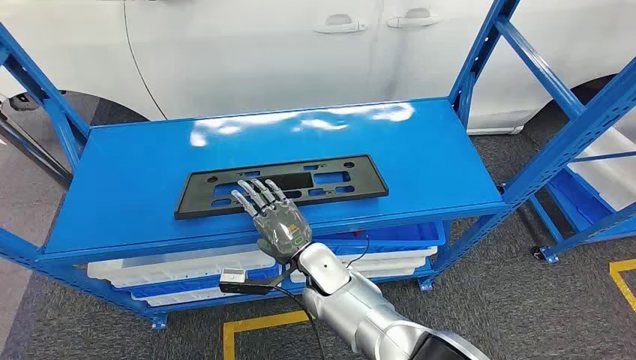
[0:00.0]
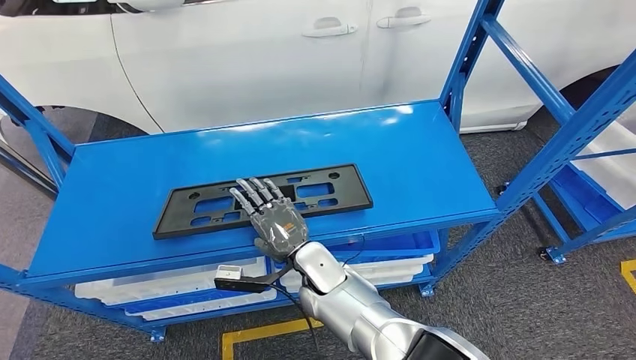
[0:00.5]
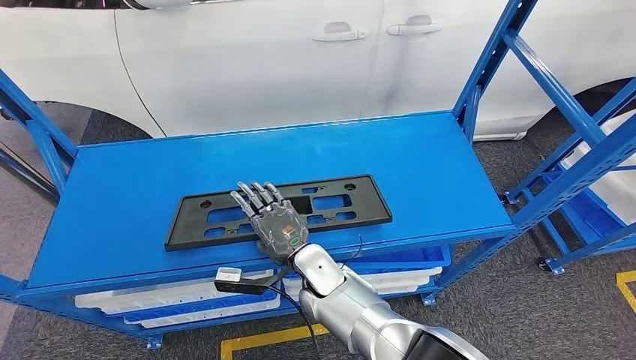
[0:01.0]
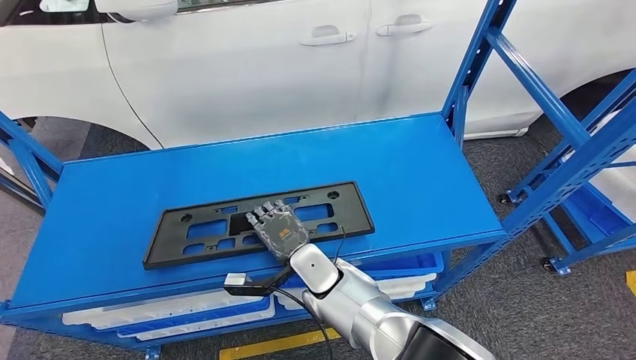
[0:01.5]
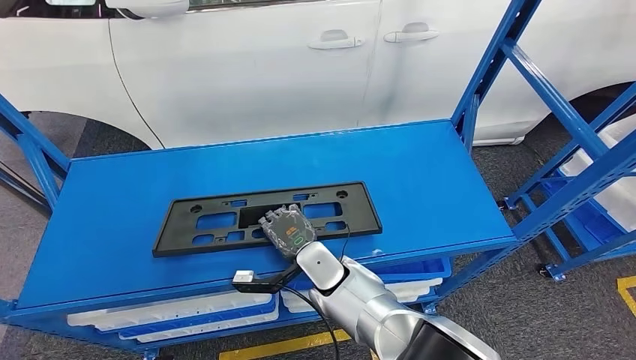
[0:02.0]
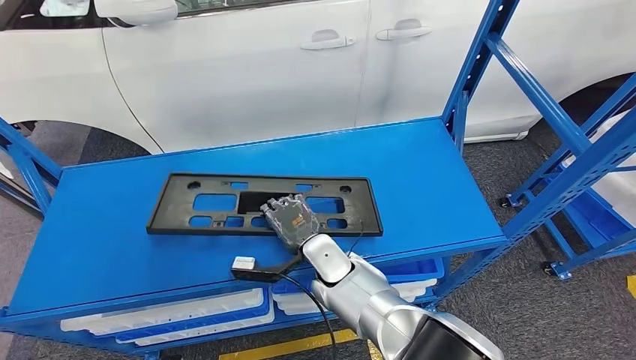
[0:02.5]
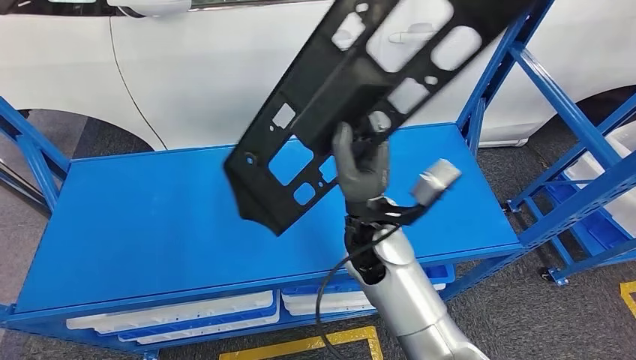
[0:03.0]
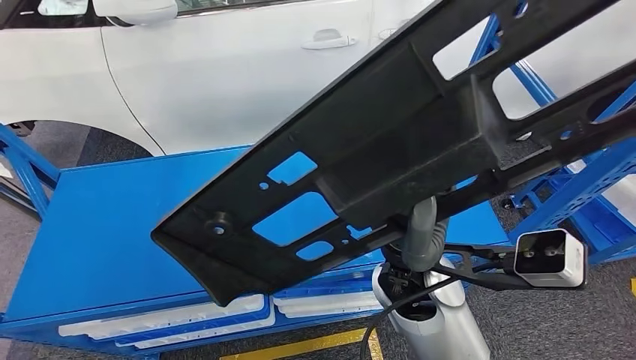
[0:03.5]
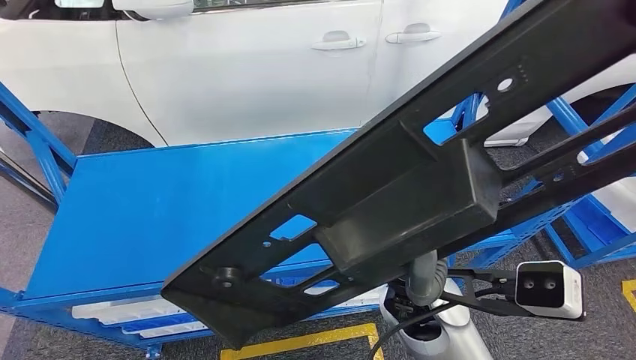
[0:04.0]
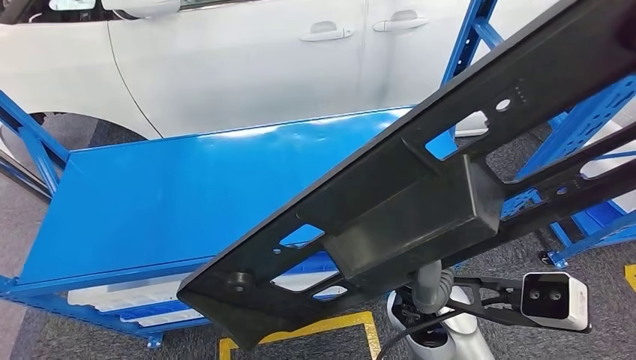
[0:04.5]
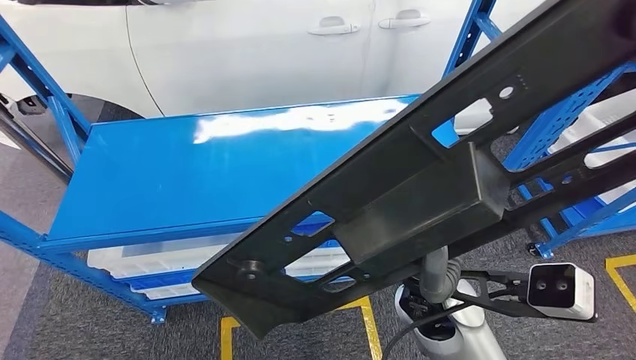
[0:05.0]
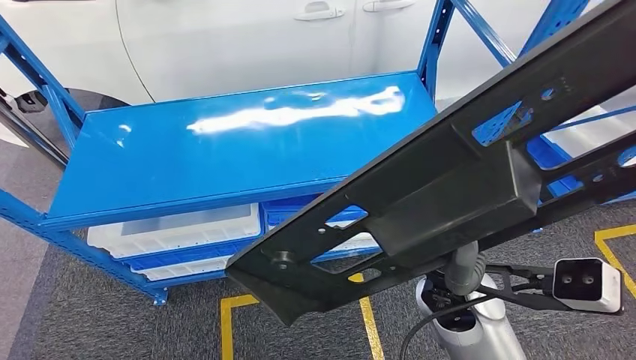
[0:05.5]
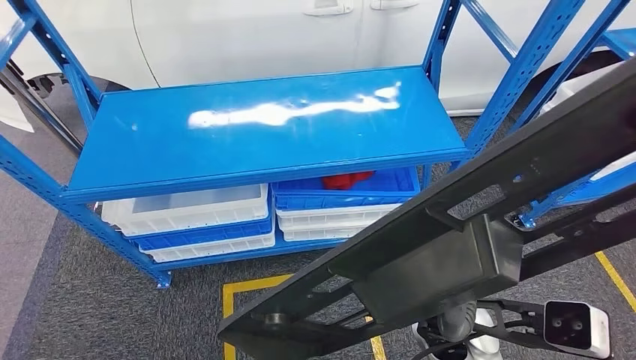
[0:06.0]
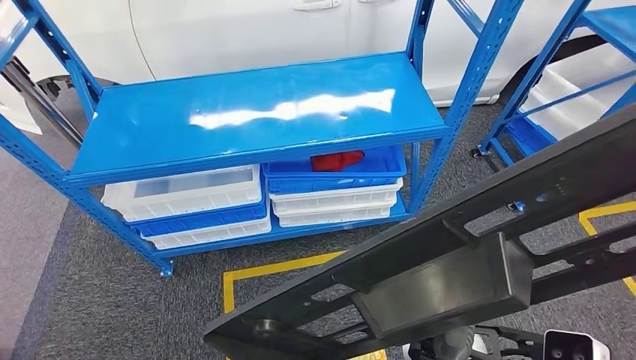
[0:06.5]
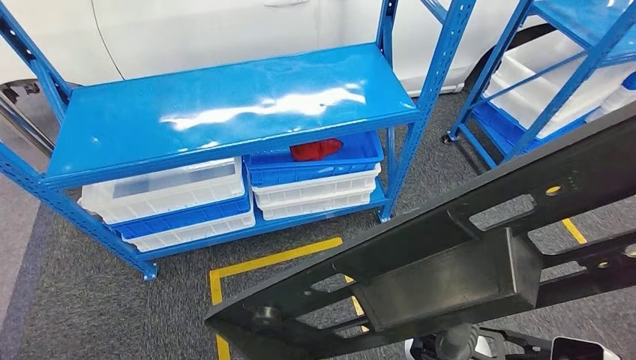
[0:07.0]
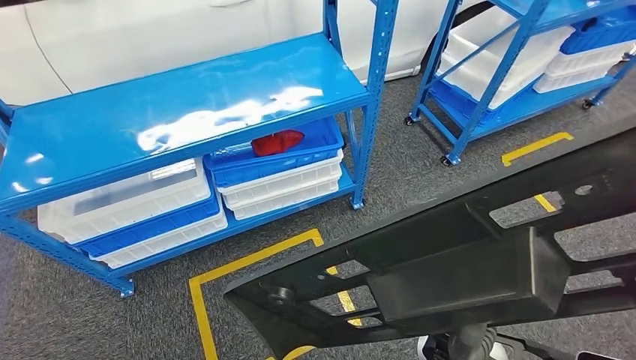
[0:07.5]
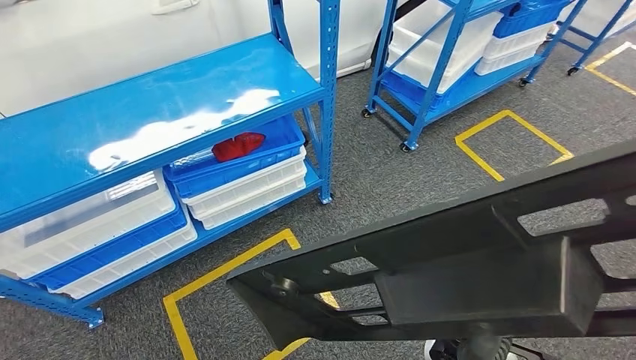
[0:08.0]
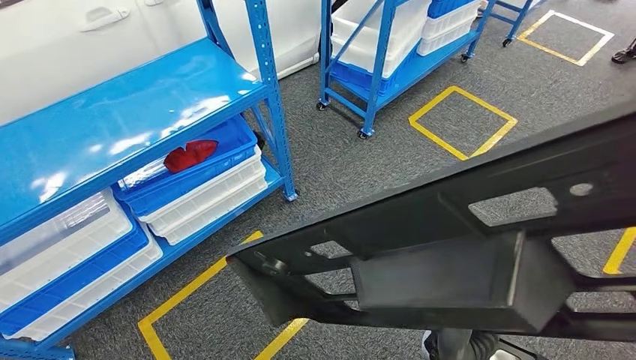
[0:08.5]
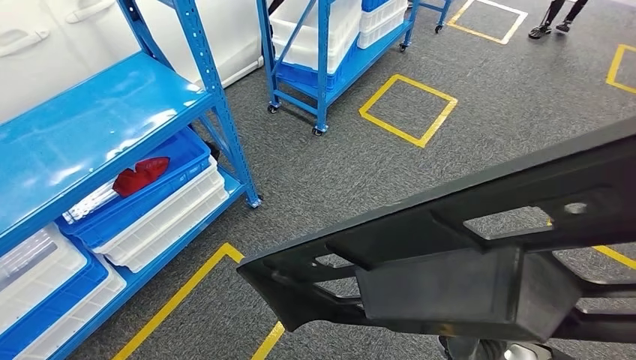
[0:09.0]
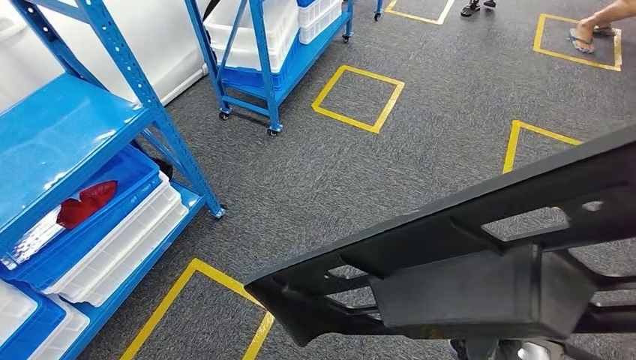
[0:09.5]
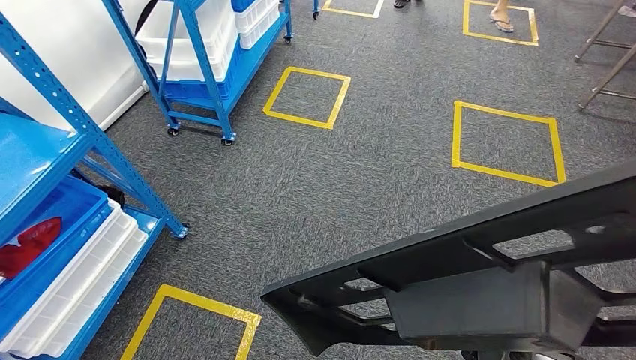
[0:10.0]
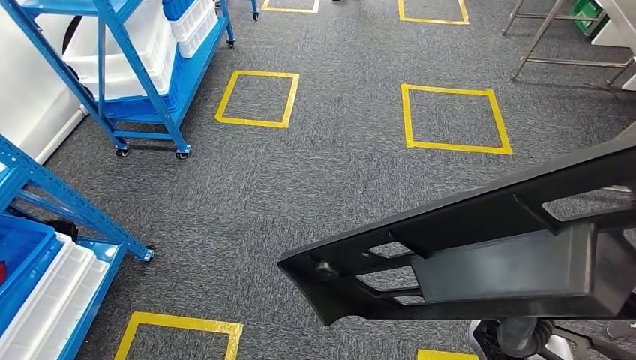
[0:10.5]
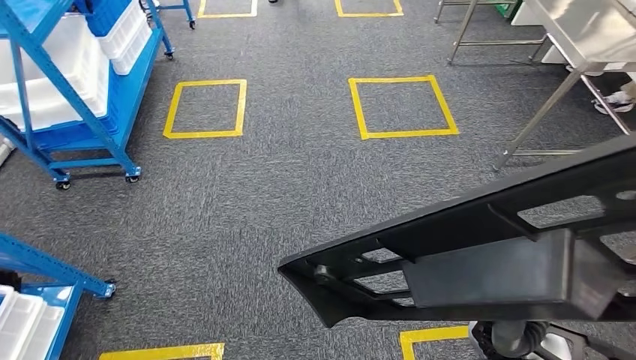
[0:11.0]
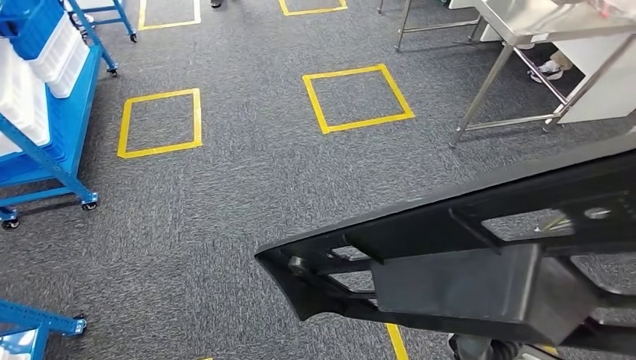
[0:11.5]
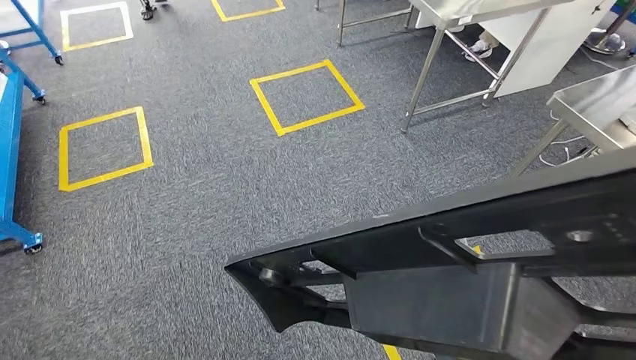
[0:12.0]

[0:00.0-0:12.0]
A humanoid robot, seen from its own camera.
Step, 0:00.0 to 0:03.5: Pick up the large material from the shelf.

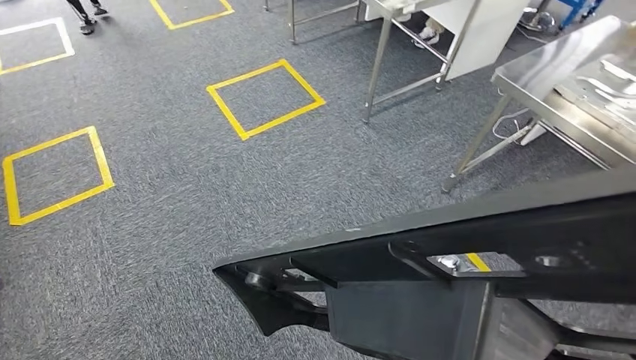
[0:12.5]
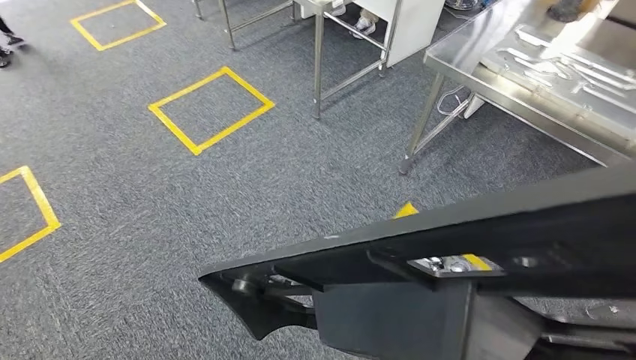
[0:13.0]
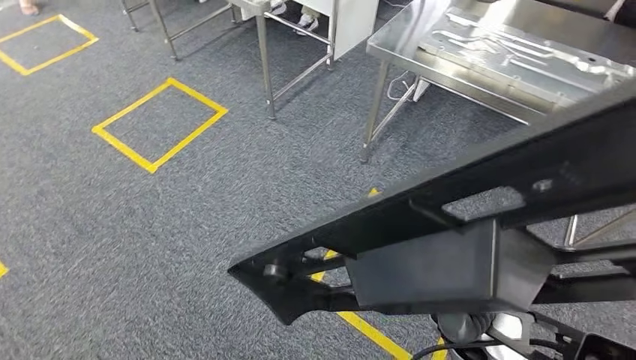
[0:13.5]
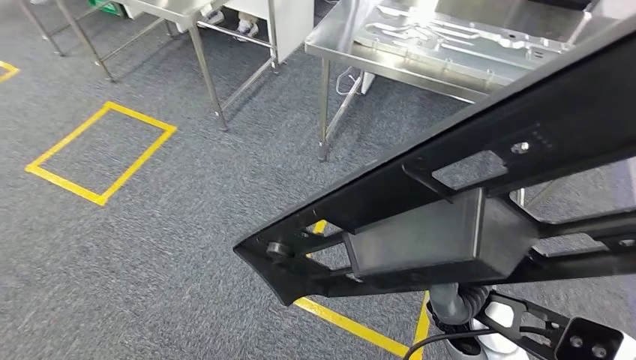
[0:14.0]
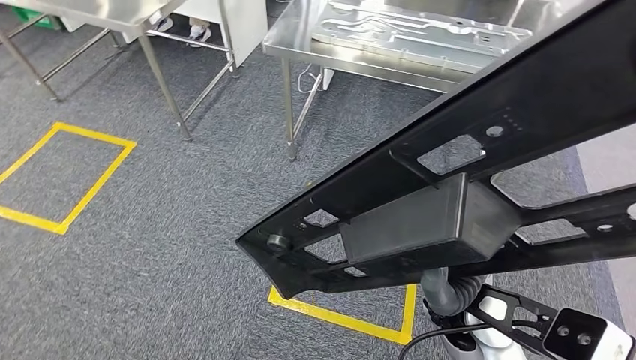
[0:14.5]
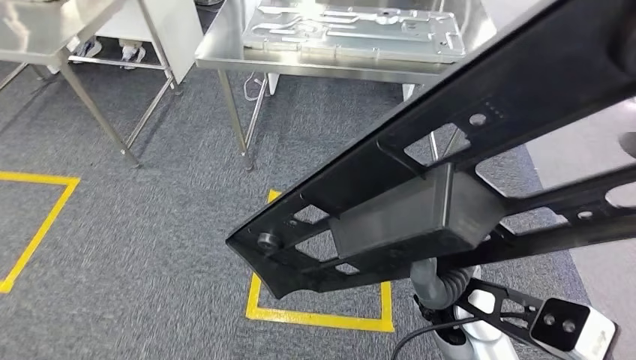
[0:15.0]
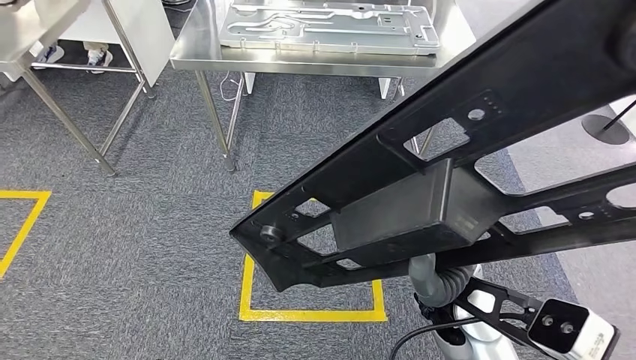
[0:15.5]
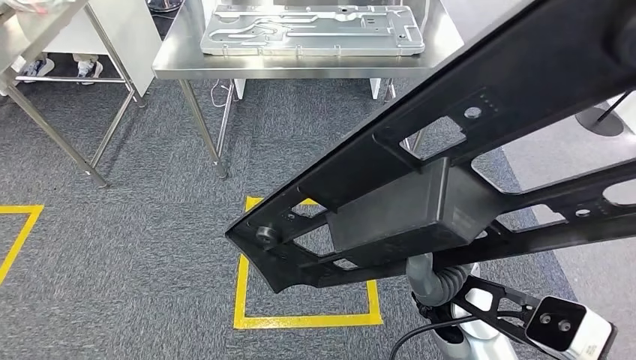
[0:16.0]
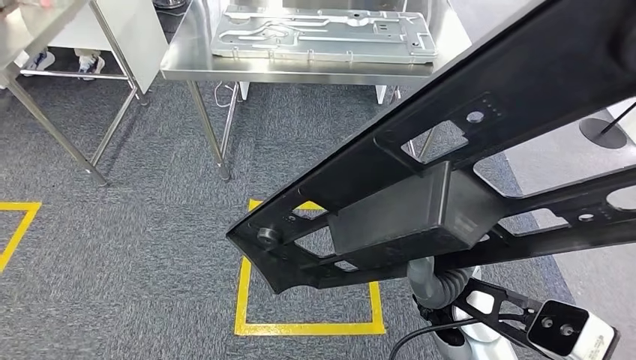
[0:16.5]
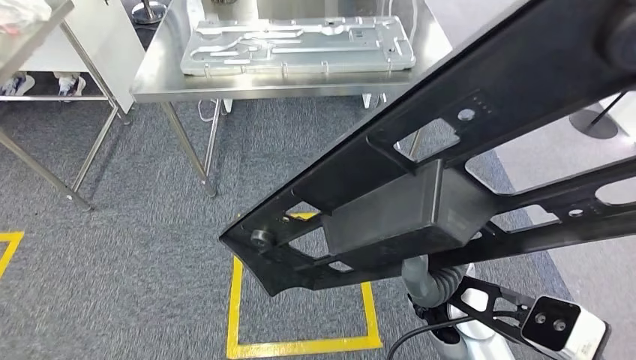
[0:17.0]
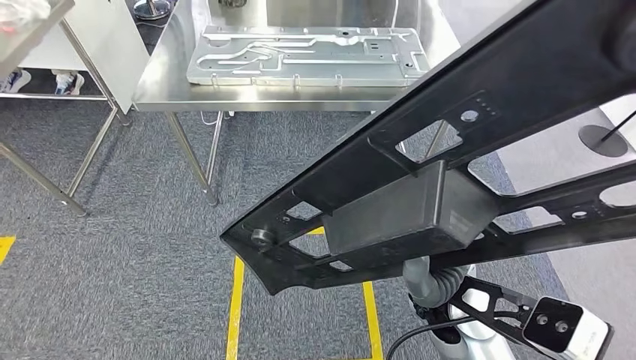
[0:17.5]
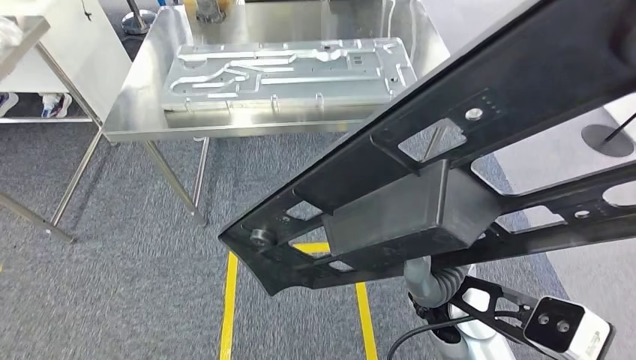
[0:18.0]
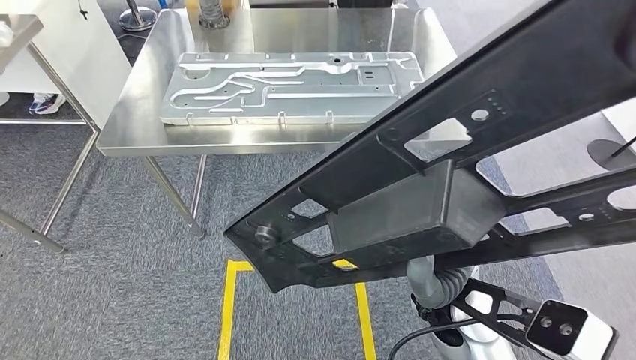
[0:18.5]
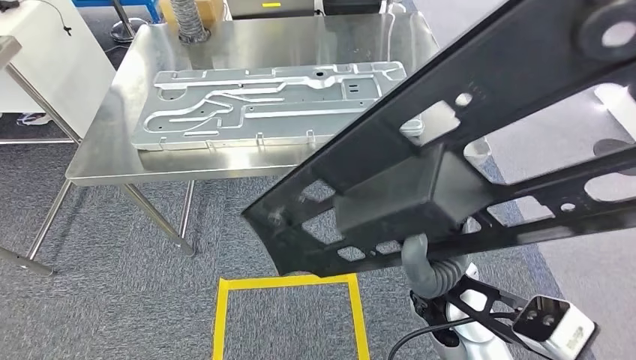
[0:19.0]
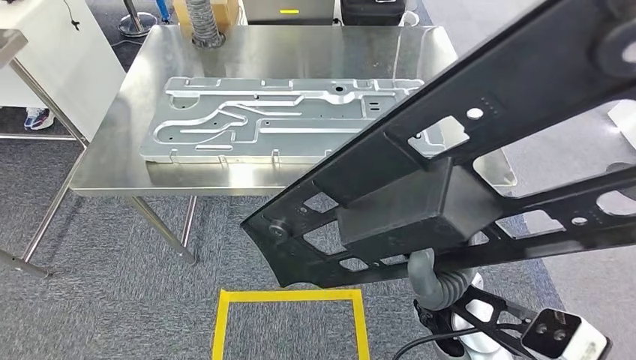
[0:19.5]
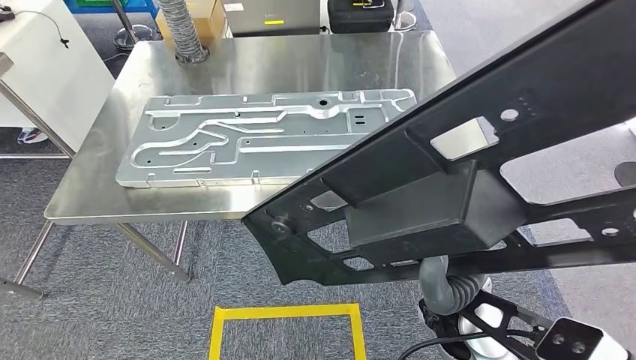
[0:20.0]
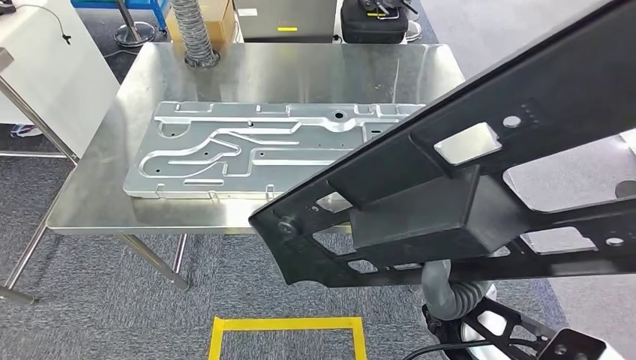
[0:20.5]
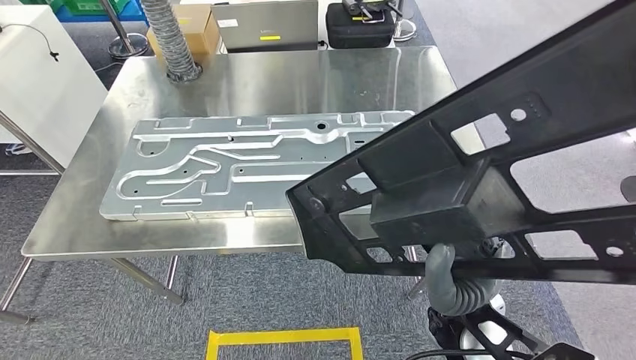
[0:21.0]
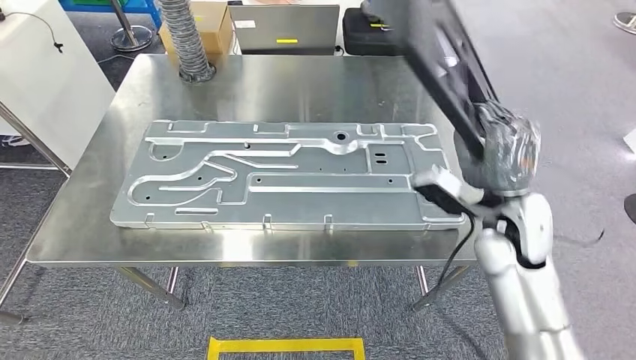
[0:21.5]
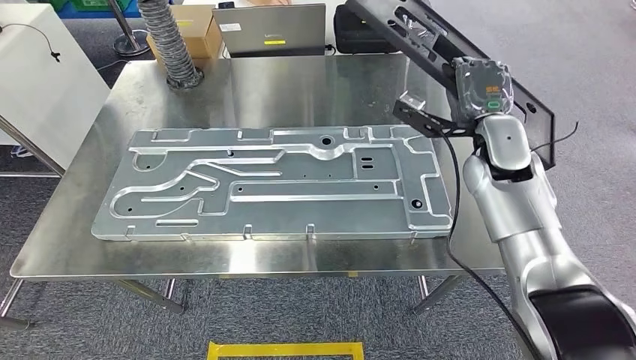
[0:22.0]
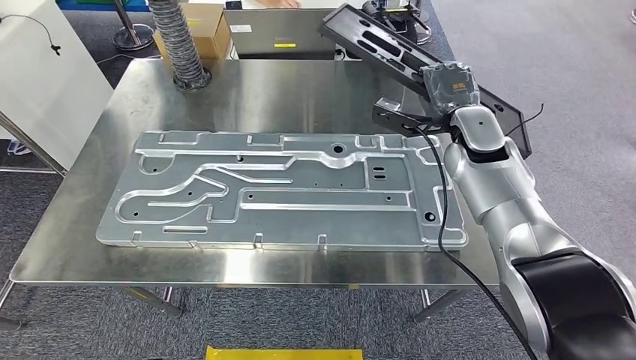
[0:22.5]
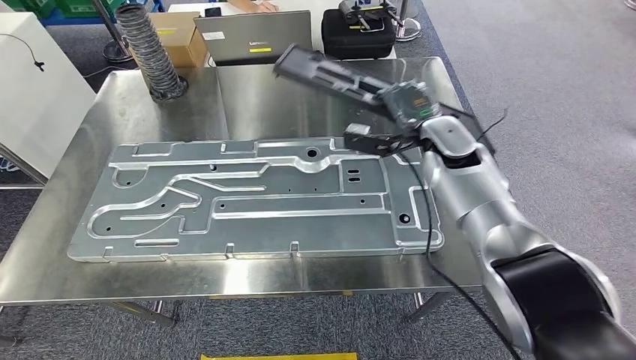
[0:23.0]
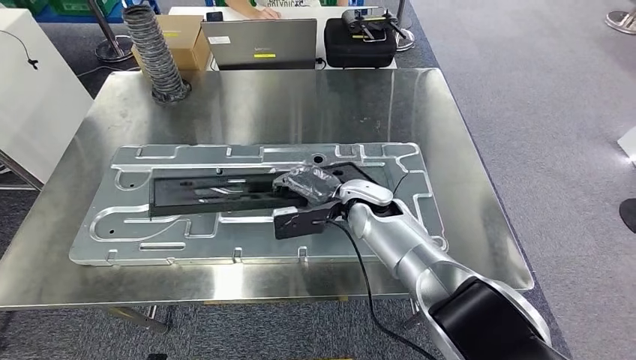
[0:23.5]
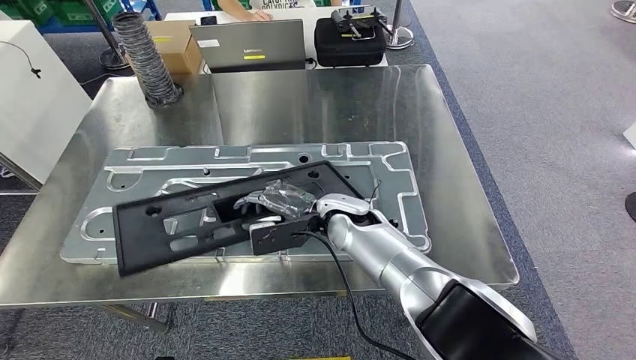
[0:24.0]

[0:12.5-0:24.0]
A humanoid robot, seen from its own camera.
Step, 0:12.5 to 0:20.5: Move the large material to the workbench.
